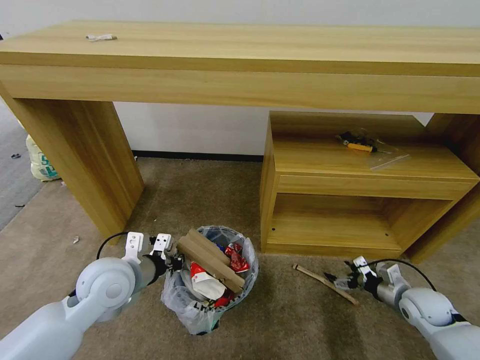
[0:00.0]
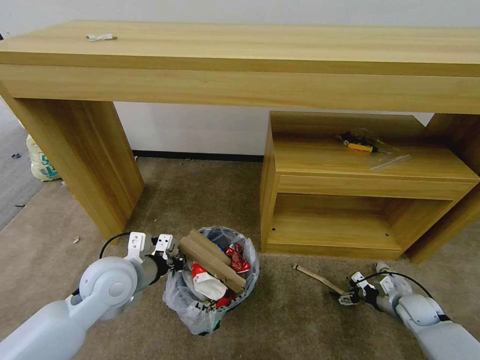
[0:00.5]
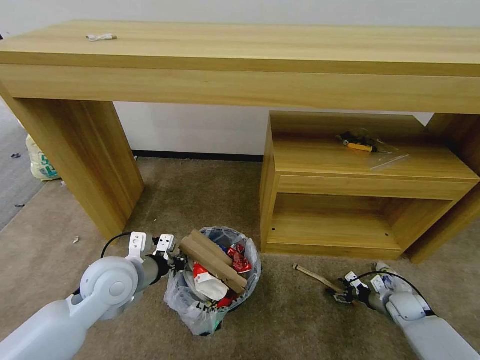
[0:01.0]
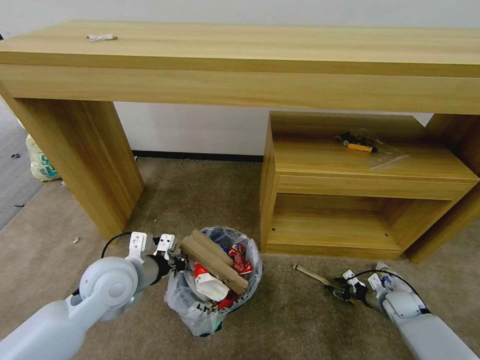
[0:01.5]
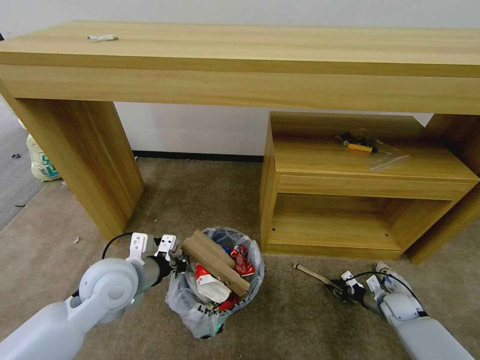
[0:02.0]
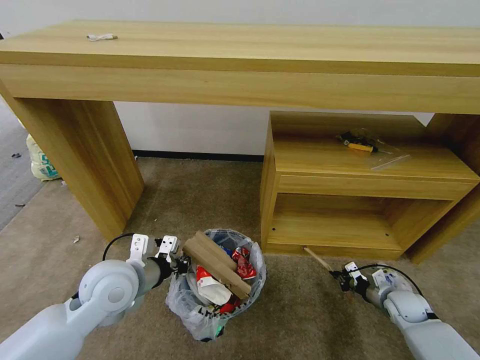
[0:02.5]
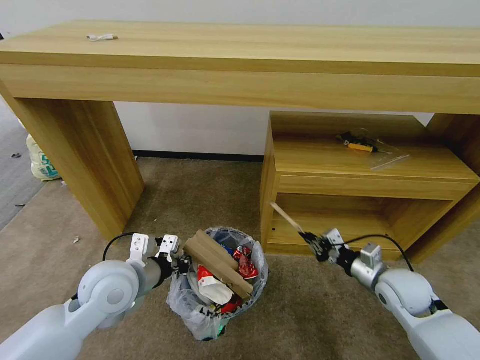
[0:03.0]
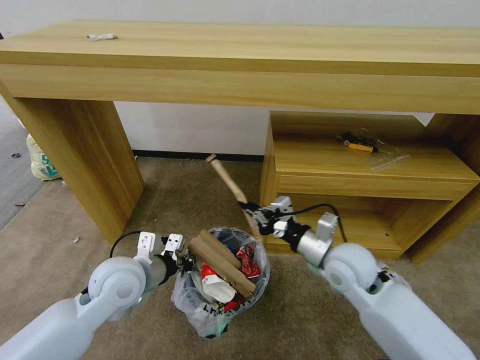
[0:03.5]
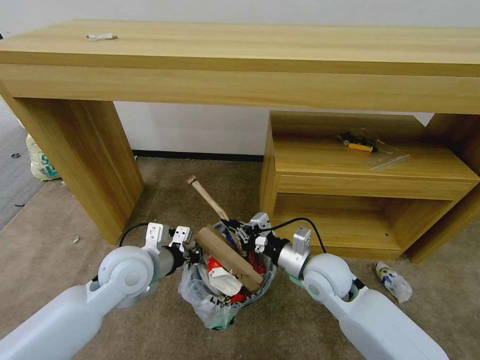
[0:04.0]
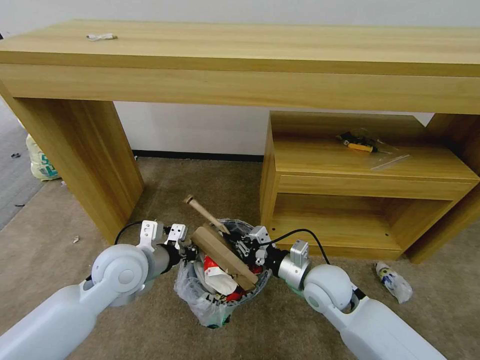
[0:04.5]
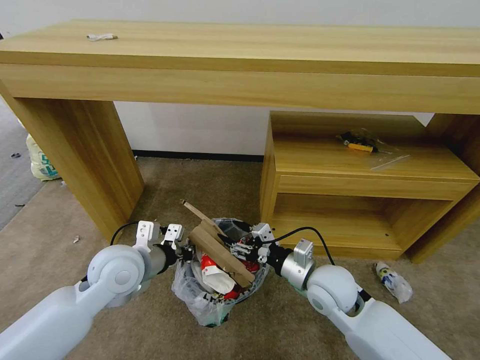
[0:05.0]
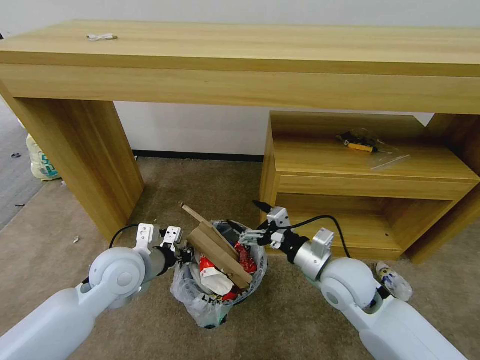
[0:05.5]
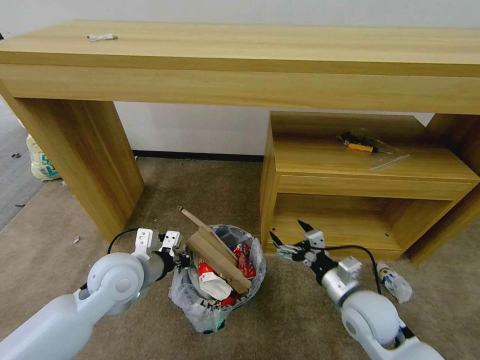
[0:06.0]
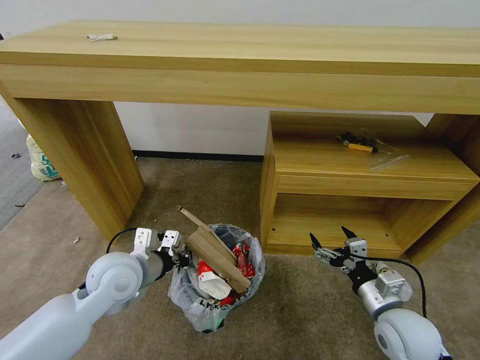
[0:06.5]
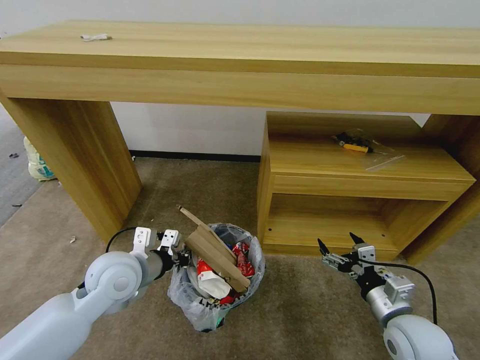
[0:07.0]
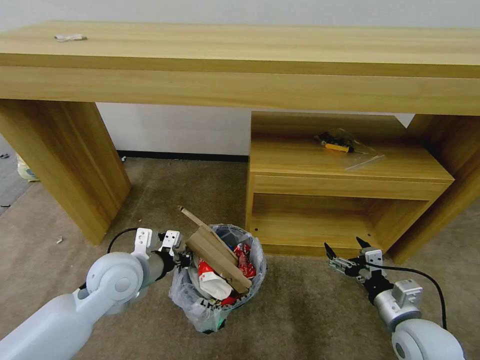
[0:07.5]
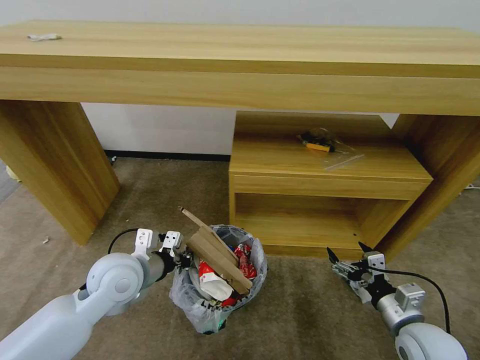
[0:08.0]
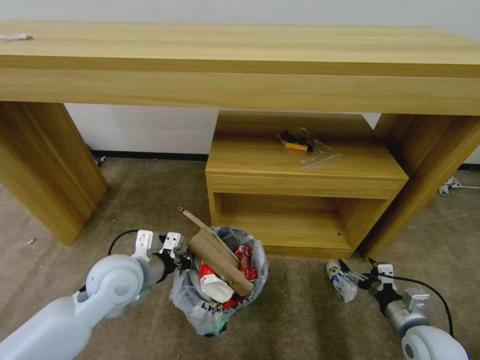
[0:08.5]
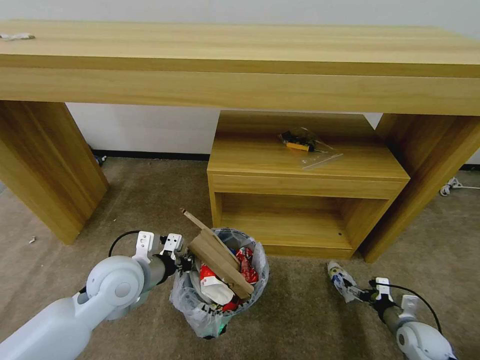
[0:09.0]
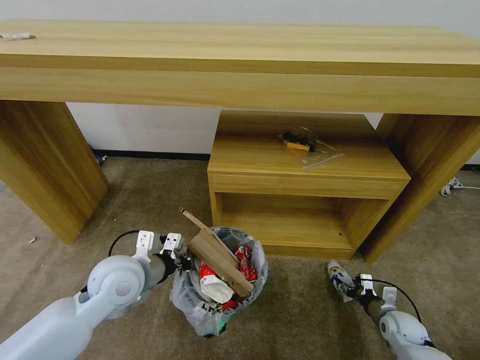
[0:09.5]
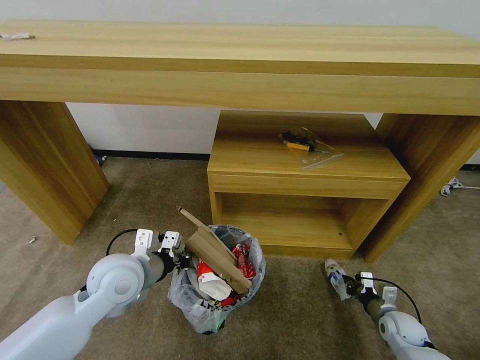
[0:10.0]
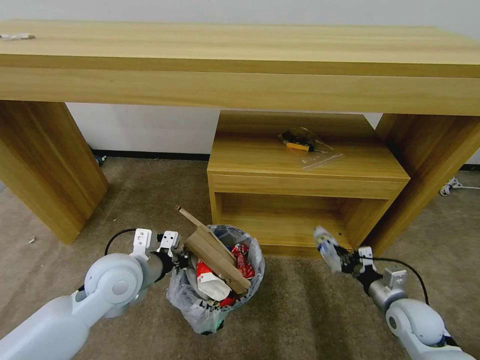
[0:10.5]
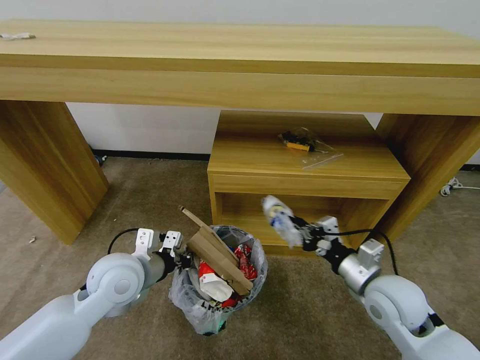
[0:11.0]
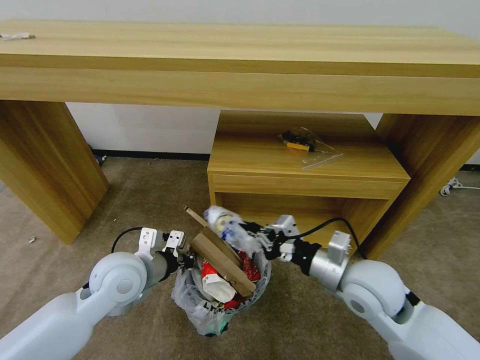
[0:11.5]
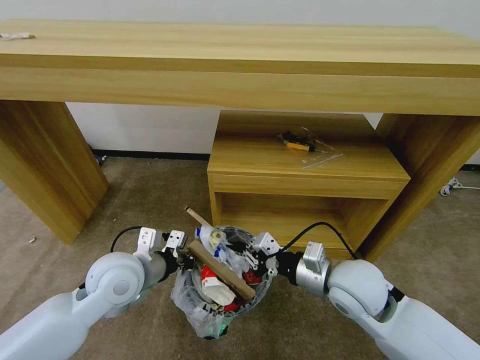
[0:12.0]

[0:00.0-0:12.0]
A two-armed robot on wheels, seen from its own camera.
Task of the whole recording: Pick up the trash bin and place the garbage on the floor into it.
0:00.0 to 0:02.0: The right gripper heads downward, covering approximately 10 cm, and closes.
0:02.0 to 0:04.0: The right gripper goes roughly 35 cm to the left and upward.
0:04.0 to 0:06.0: The right gripper heads to the right and backward, covering about 10 cm, and opens up.
0:06.0 to 0:08.0: The right gripper heads to the right and backward, covering roughly 10 cm.
0:08.0 to 0:10.0: The right gripper travels downward, to the right and forward by roughly 20 cm, and closes up.
0:10.0 to 0:12.0: The right gripper shifts approximately 35 cm upward and to the left.

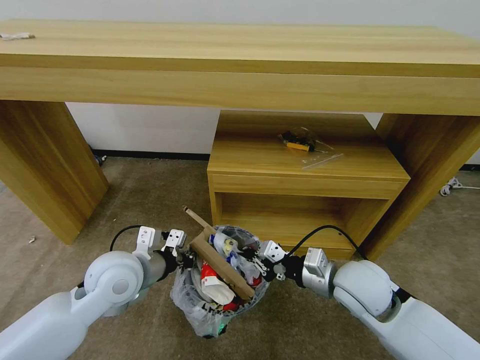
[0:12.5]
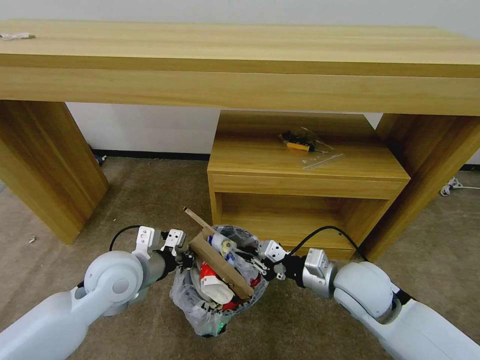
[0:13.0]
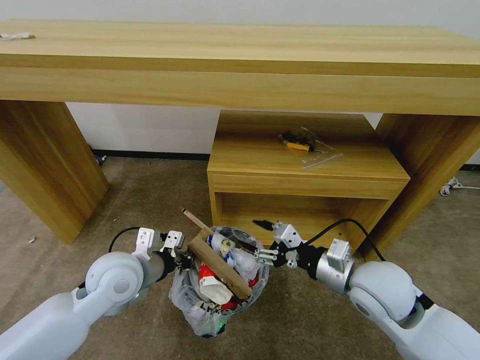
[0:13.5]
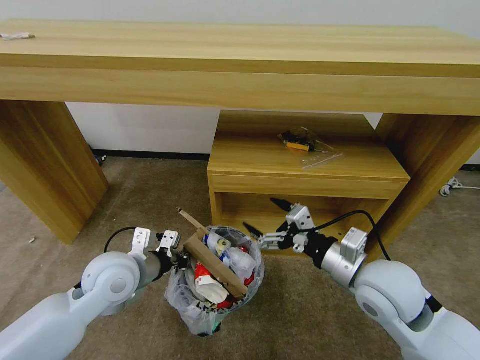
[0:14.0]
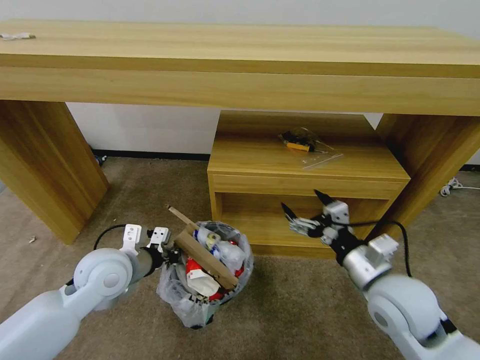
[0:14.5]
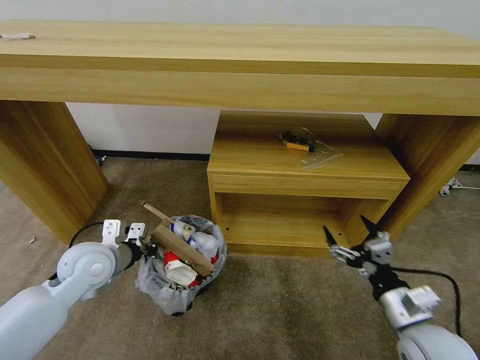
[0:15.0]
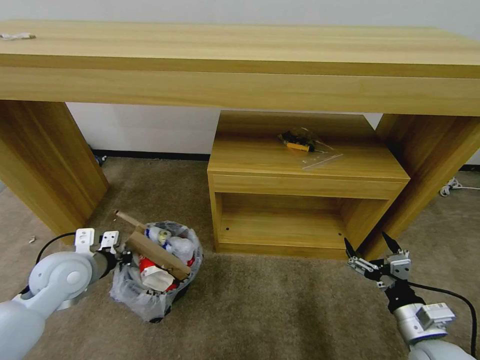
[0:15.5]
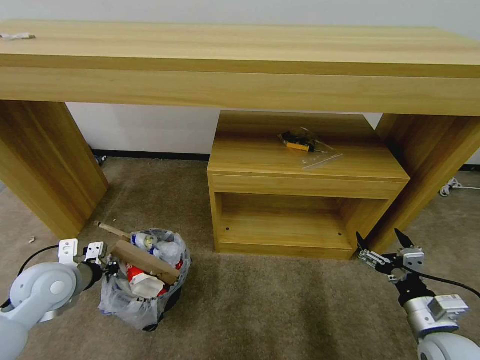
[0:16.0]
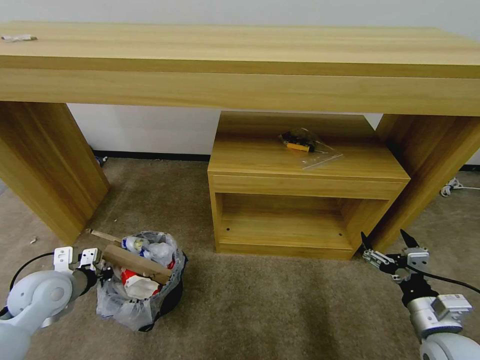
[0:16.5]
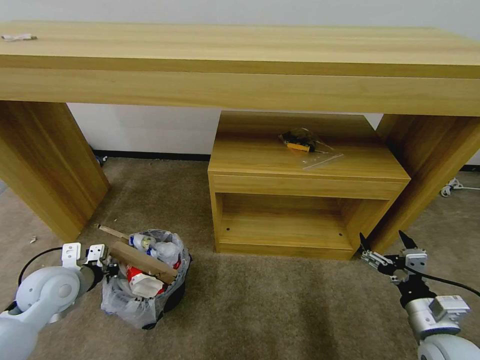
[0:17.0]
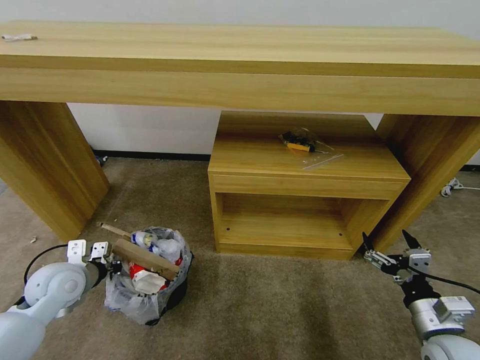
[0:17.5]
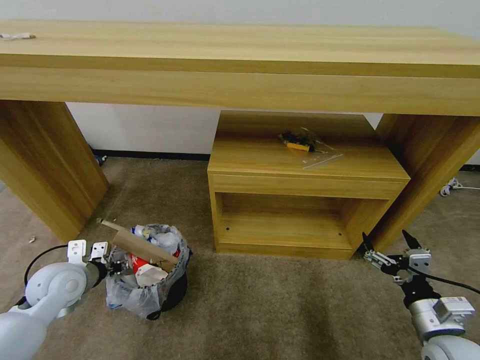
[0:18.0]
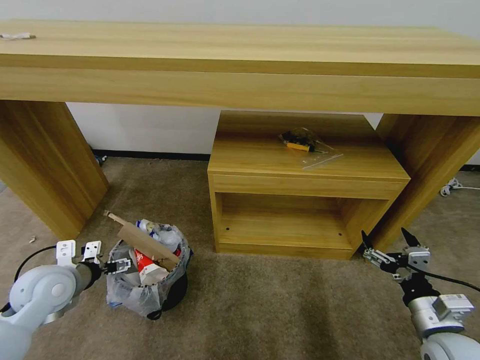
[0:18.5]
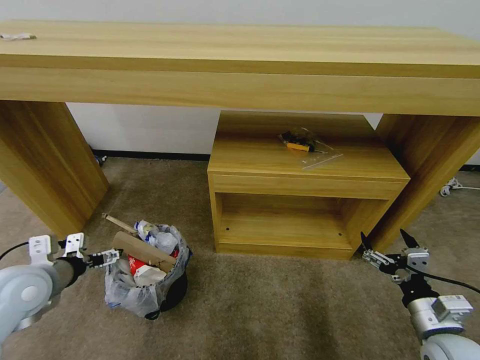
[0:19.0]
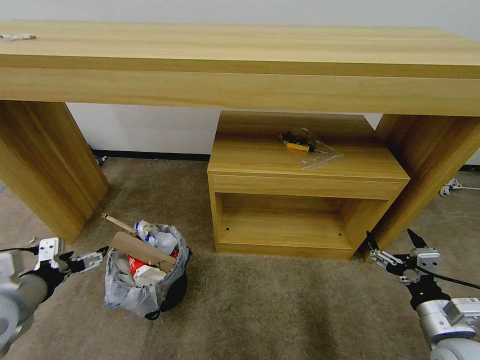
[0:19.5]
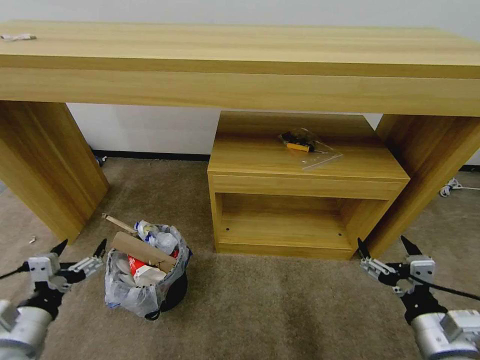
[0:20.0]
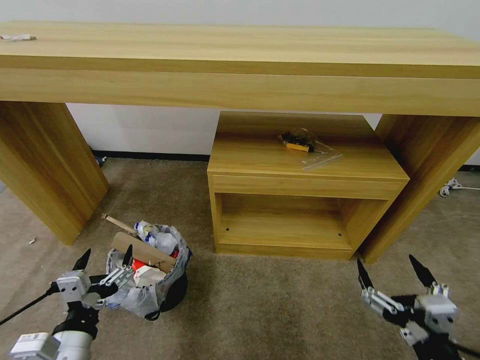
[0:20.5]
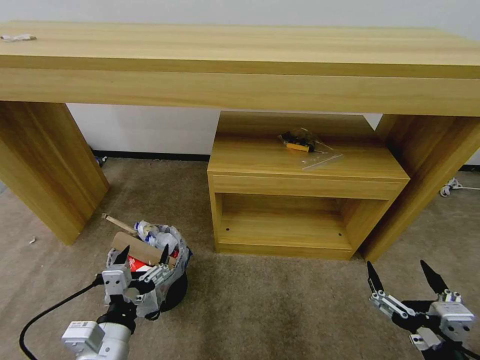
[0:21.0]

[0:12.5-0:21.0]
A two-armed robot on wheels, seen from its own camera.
Task of the whole recording: Pick up the trash bin and place the garbage on the floor into it.
0:12.5 to 0:14.5: The right gripper ends up roughly 5 cm from where it was, and opens its fingers.
0:14.5 to 0:16.5: The left gripper shifts about 15 cm to the left. Meanwhile the right gripper is displaced to the right, downward and backward by about 15 cm.
0:16.5 to 0:19.0: The left gripper heads upward, covering approximately 5 cm, and opens up.
0:19.0 to 0:21.0: The left gripper moves to the right and backward, roughly 20 cm. Meanwhile the right gripper is displaced backward, to the left and upward by roughly 15 cm.
